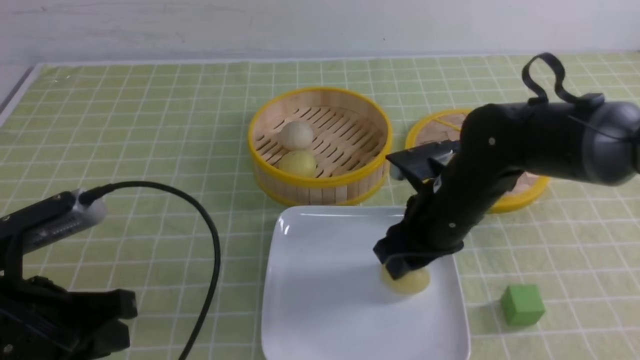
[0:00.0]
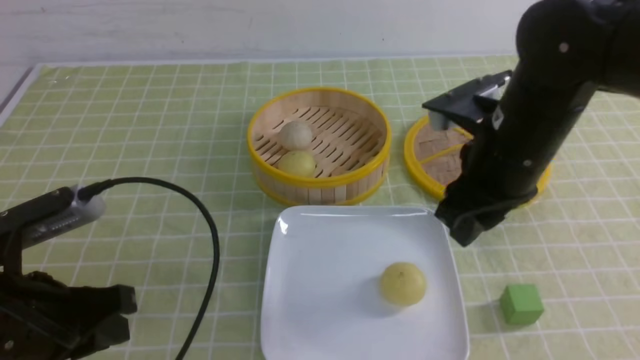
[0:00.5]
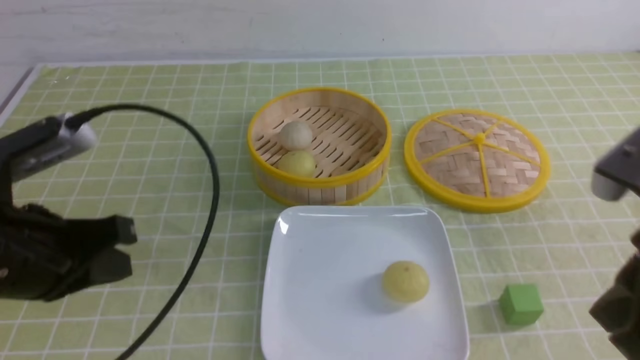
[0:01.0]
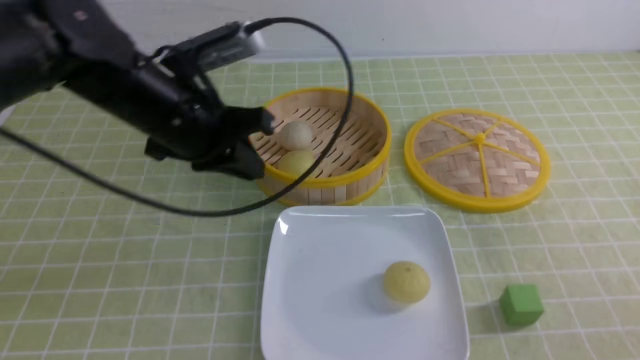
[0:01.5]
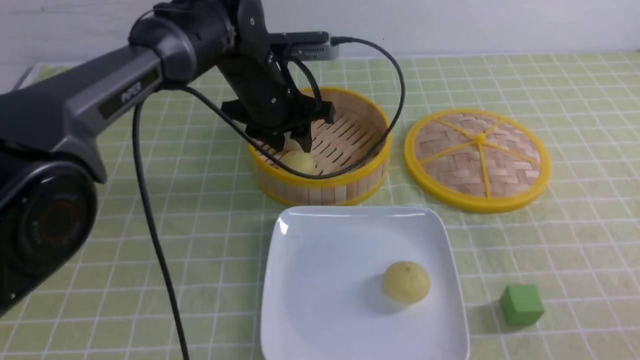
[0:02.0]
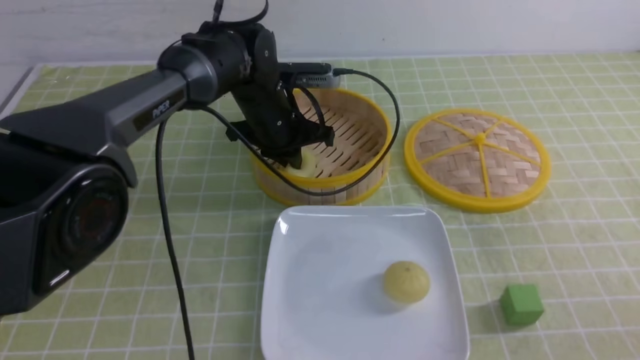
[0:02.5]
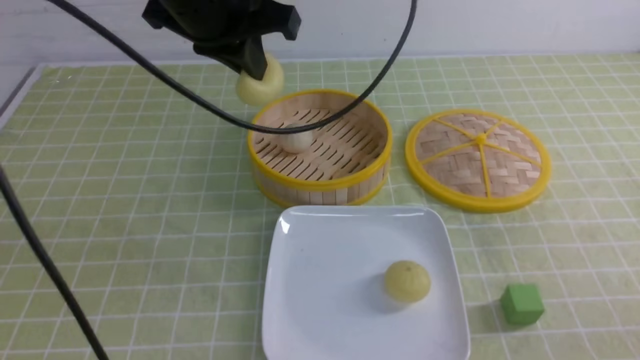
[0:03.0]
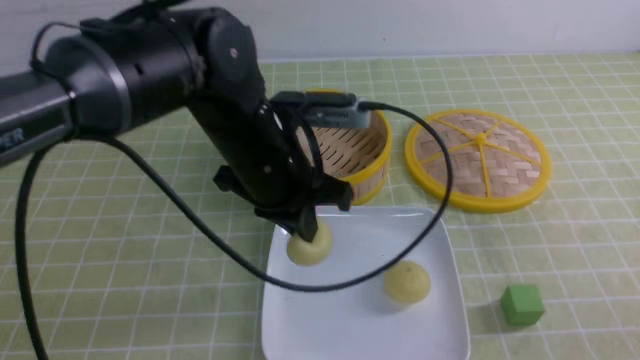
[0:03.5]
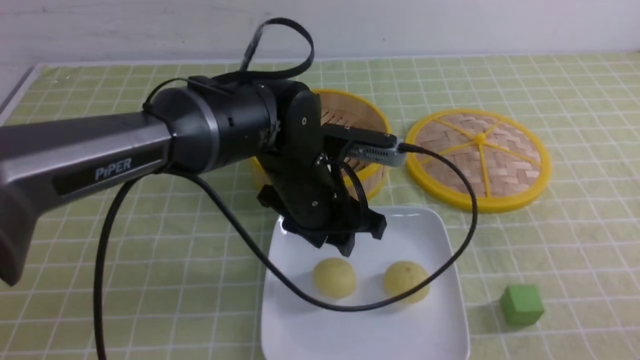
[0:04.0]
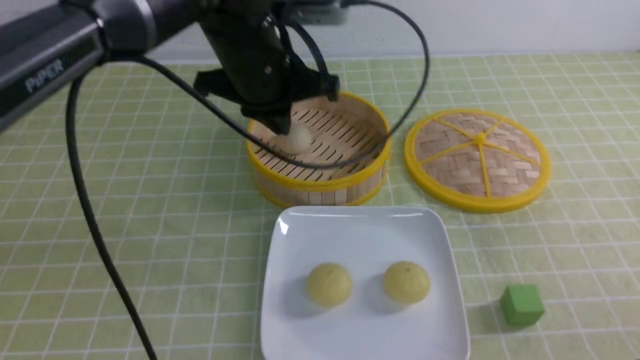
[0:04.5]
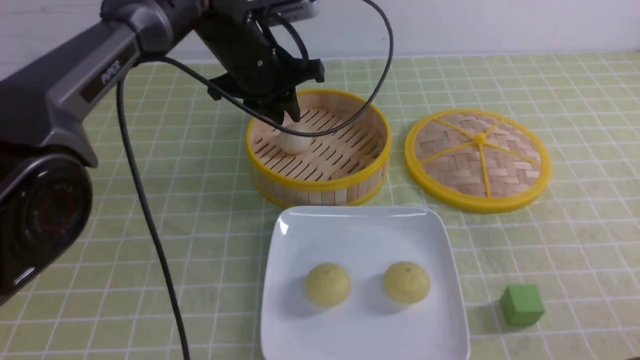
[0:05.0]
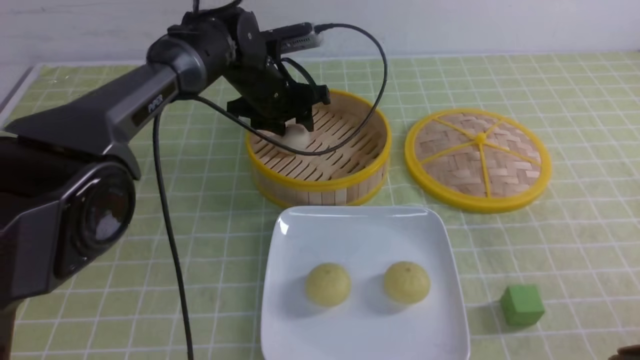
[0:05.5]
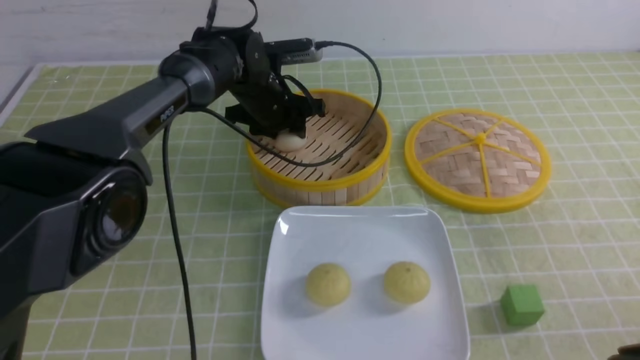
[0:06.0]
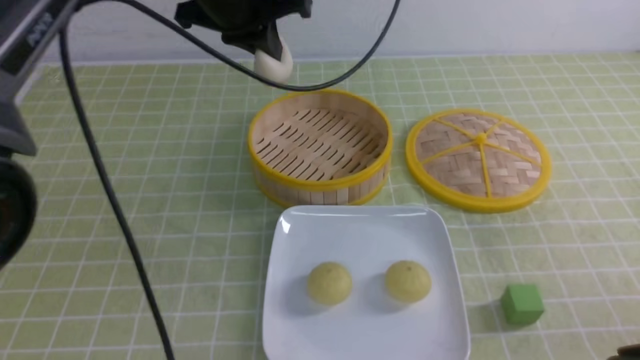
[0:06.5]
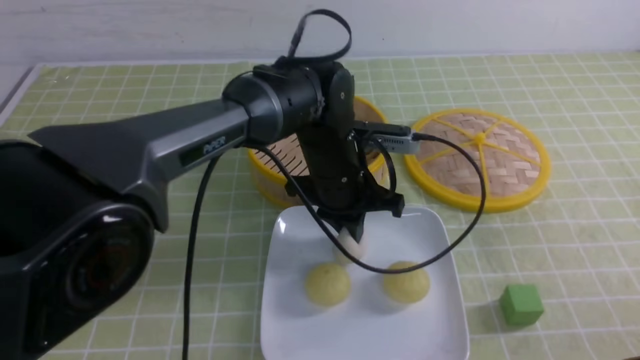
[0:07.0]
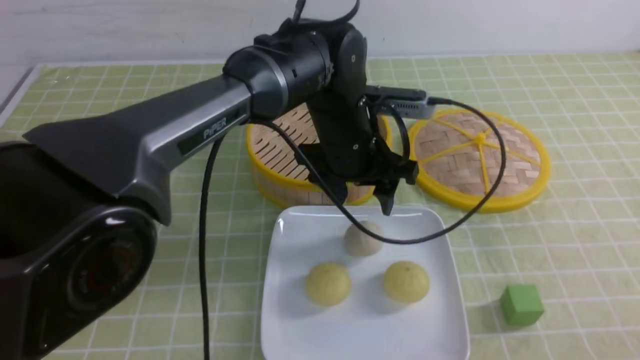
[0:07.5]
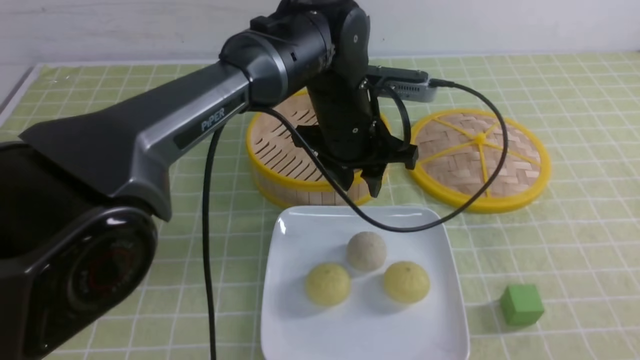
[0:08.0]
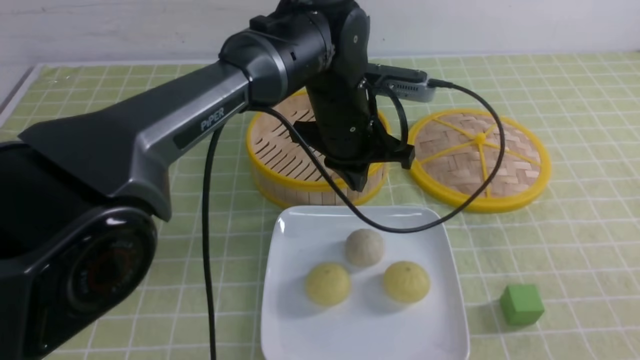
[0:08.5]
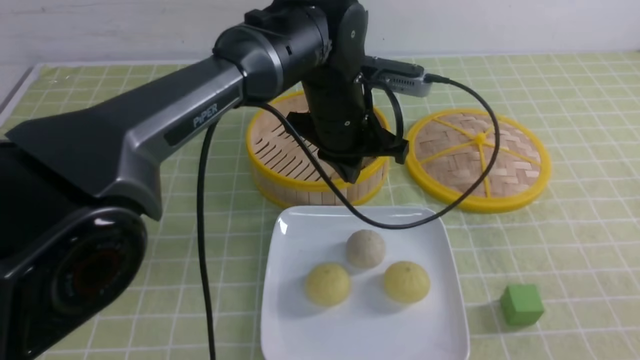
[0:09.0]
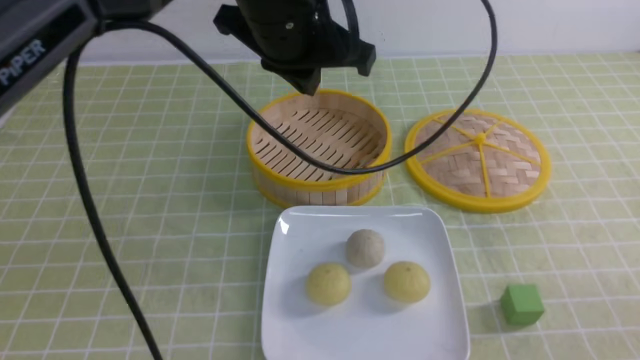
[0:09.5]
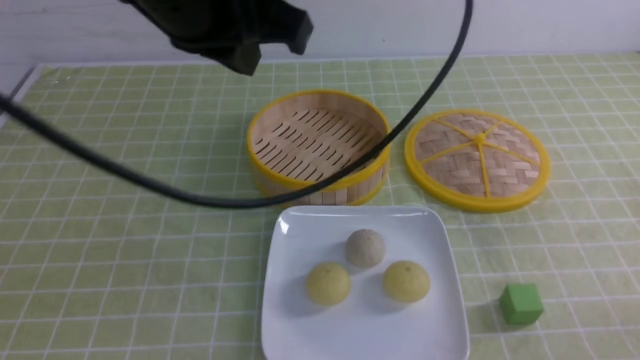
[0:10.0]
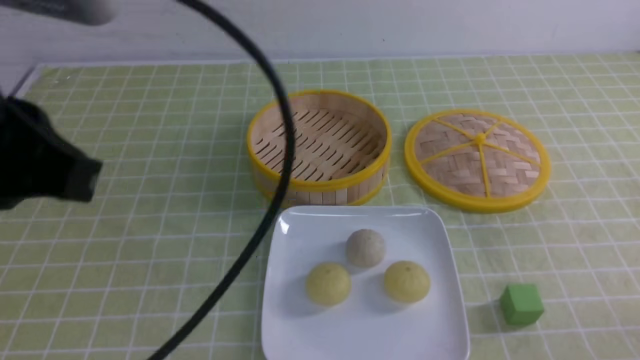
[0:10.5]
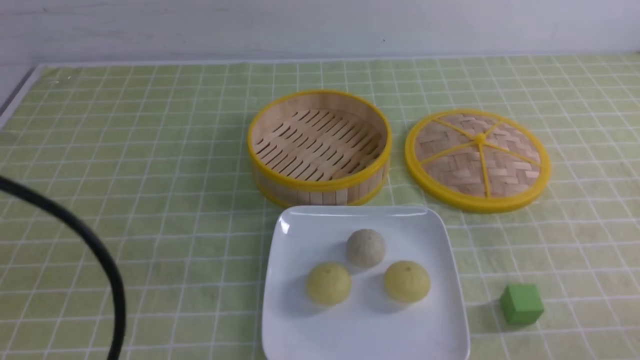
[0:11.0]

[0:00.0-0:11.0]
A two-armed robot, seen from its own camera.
Step, 0:00.5 to 0:02.5: use the left arm to grab the steamed stuffed bun that is closest to it.
Step, 0:03.0 to 0:04.0: use the left arm to put the steamed stuffed bun into the plate.
Step, 0:04.5 to 0:06.0: use the left arm to grab the steamed stuffed bun that is closest to it.
Step, 0:06.5 to 0:07.0: use the left arm to put the steamed stuffed bun into the plate.
0:00.0 to 0:02.0: The right gripper goes roughly 25 cm backward and to the right, and closes. The left gripper travels forward and to the right by approximately 35 cm, and opens its fingers.
0:02.0 to 0:03.5: The left gripper goes some 15 cm backward, travels upward and back again, about 15 cm each way, and closes its fingers.
0:03.5 to 0:05.5: The left gripper moves forward, some 20 cm, and opens up.
0:05.5 to 0:07.5: The right gripper moves backward, approximately 5 cm. The left gripper goes some 15 cm backward and to the right, and closes, then reopens.
0:07.5 to 0:09.0: The left gripper changes place by some 5 cm, and closes its fingers.
0:09.0 to 0:11.0: The left gripper moves backward and to the left, roughly 40 cm. Meanwhile the right gripper goes approximately 10 cm downward.

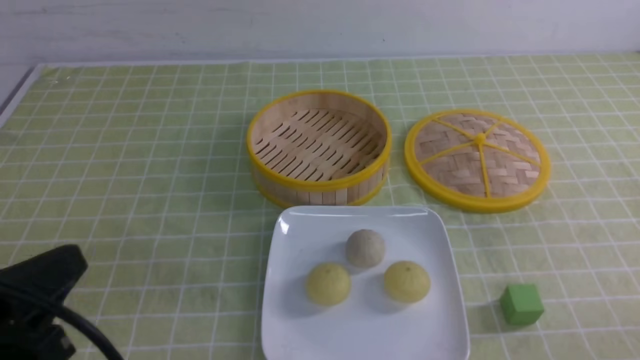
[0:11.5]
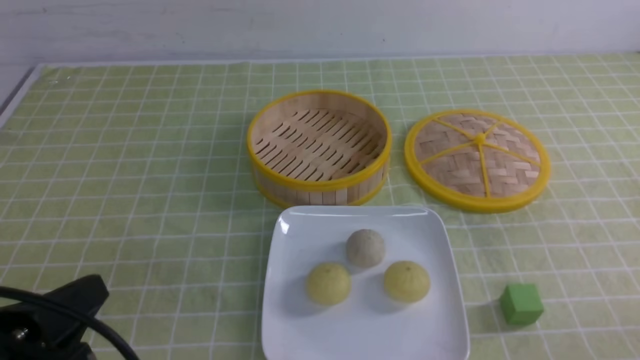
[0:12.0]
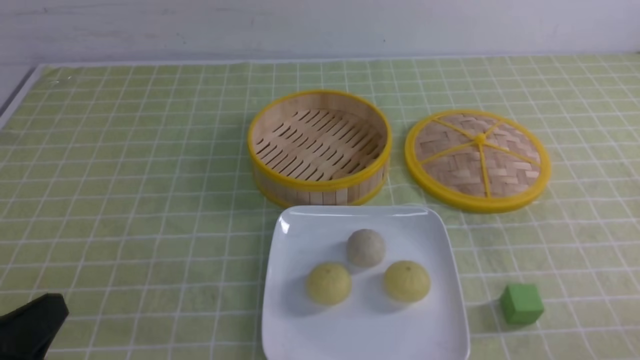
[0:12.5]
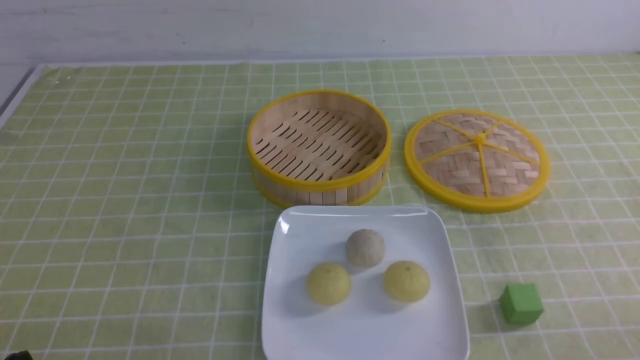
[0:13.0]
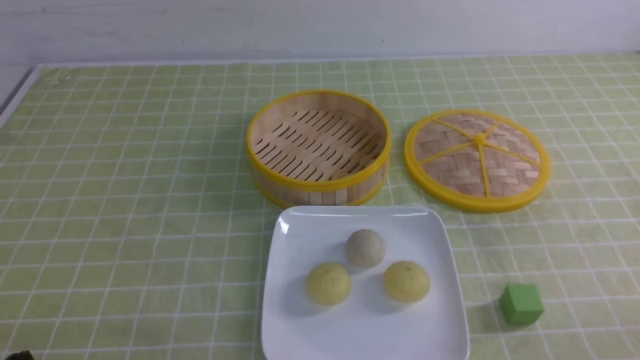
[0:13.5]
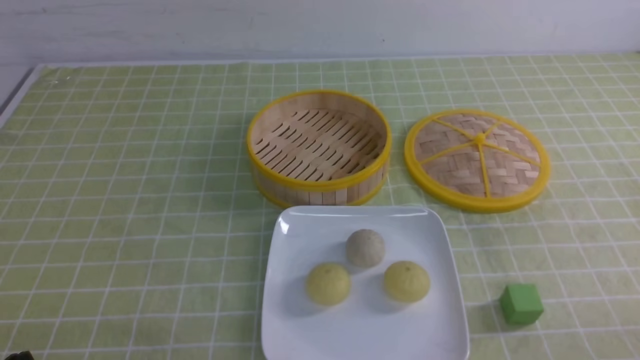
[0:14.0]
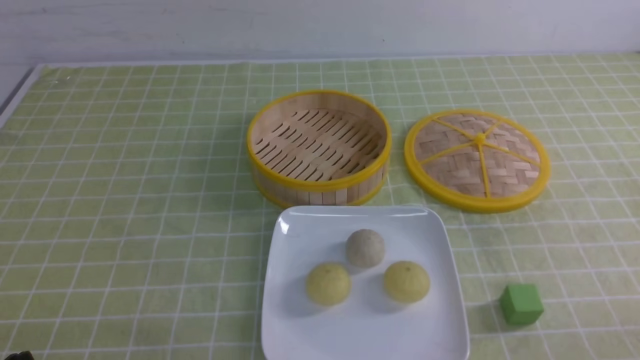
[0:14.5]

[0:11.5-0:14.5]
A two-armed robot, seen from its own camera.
0:11.5 to 0:13.0: The left gripper goes roughly 10 cm downward.
0:13.0 to 0:14.5: Both grippers stay put.
